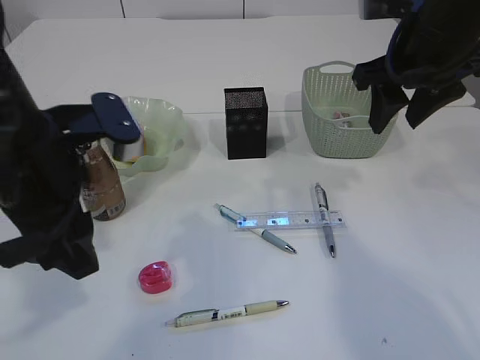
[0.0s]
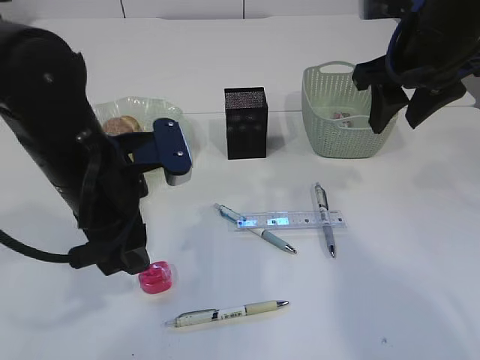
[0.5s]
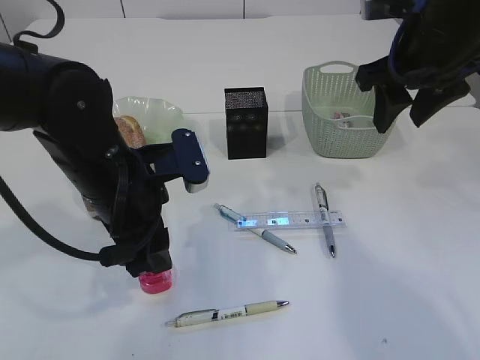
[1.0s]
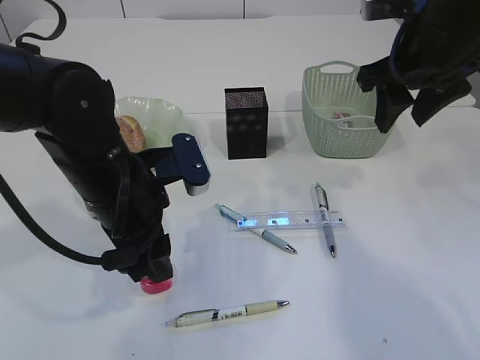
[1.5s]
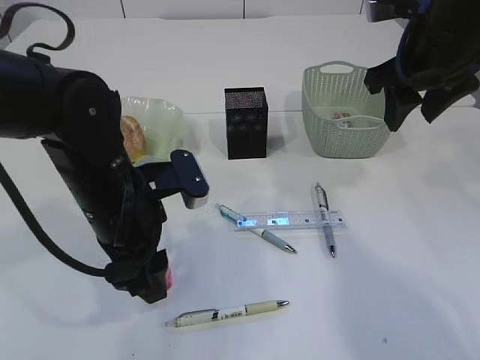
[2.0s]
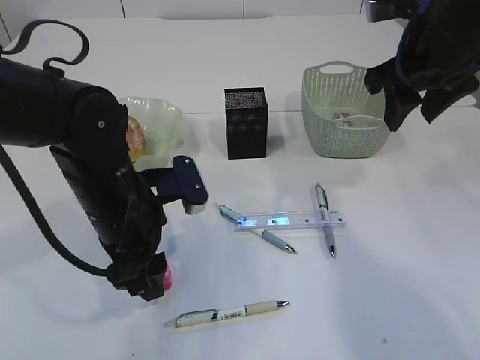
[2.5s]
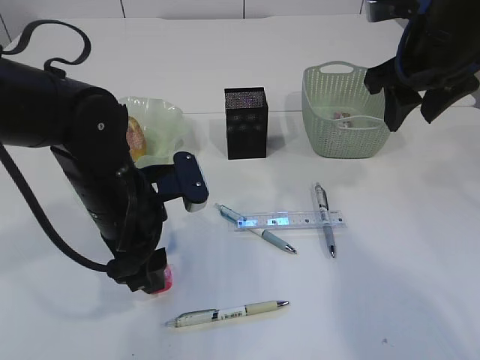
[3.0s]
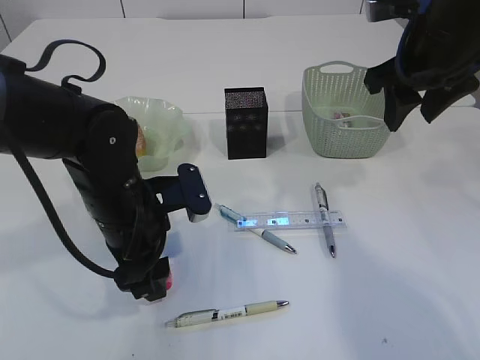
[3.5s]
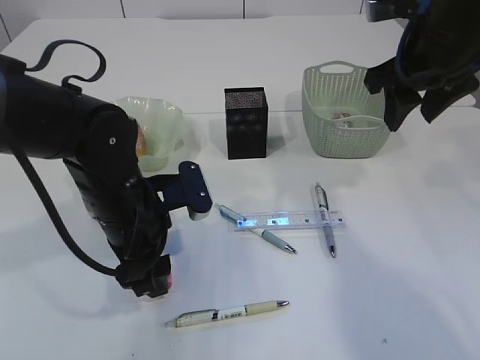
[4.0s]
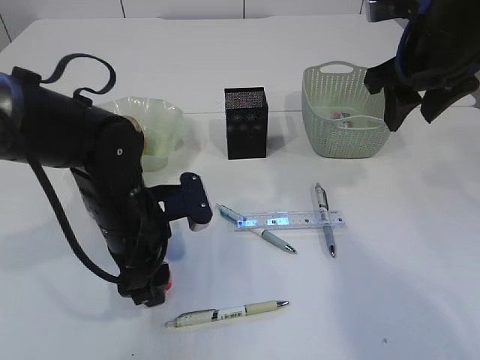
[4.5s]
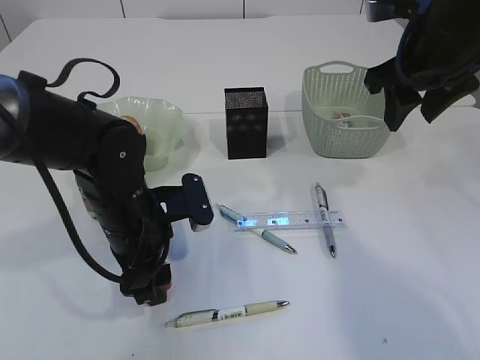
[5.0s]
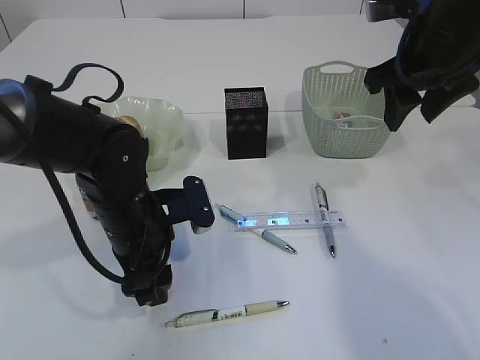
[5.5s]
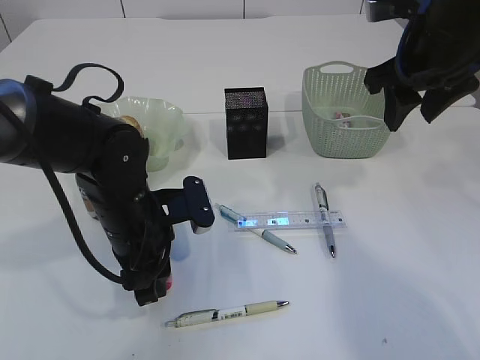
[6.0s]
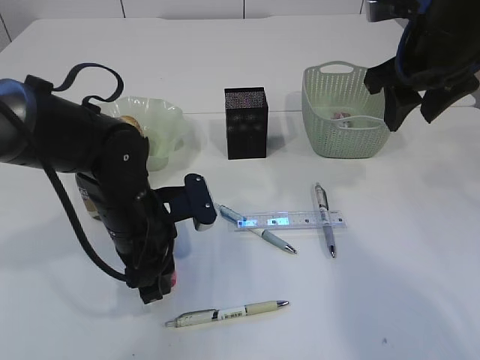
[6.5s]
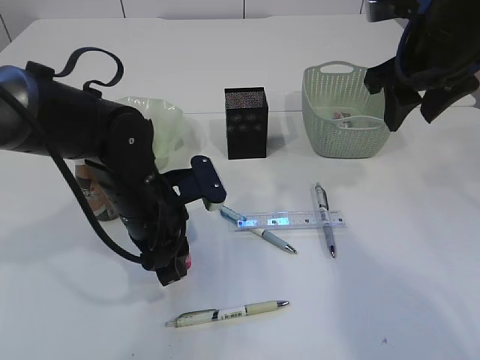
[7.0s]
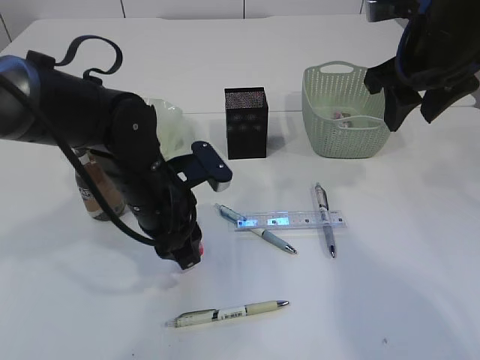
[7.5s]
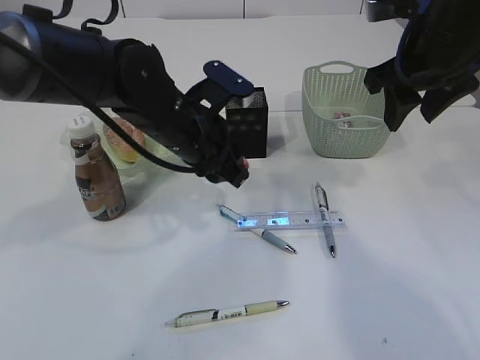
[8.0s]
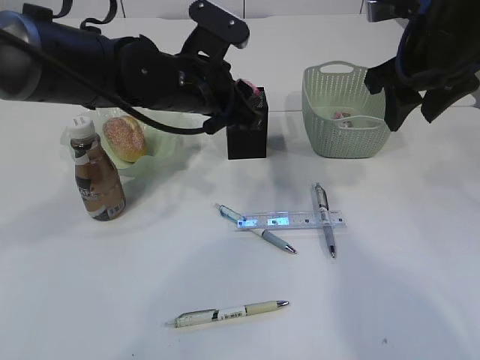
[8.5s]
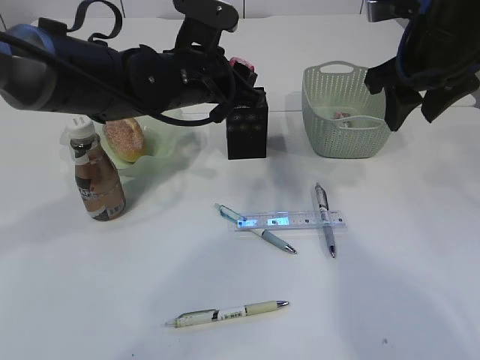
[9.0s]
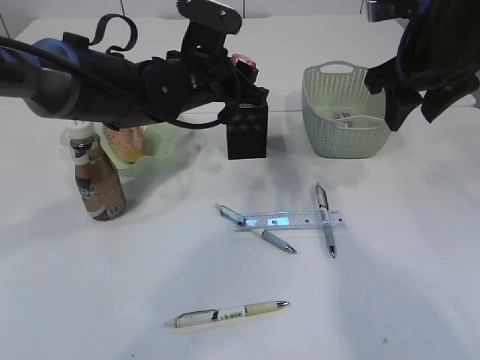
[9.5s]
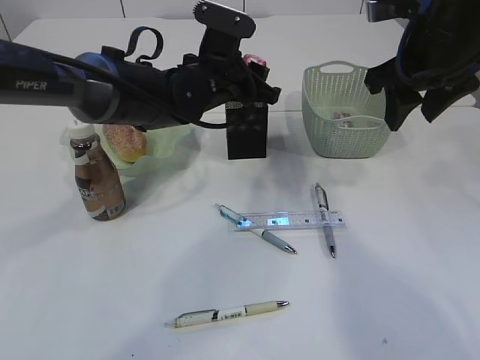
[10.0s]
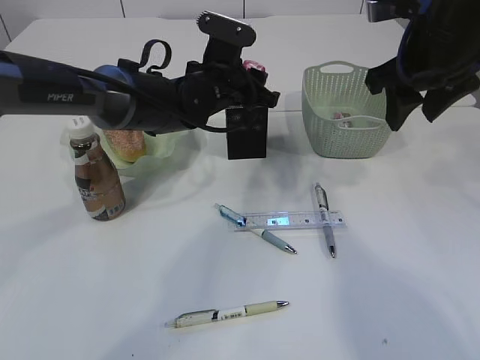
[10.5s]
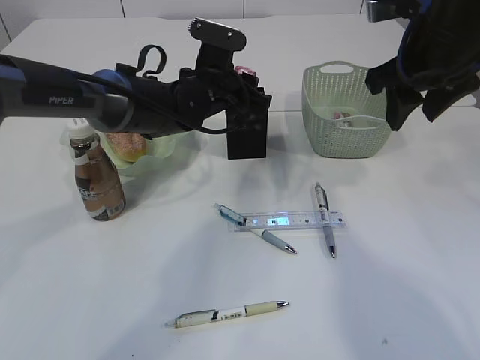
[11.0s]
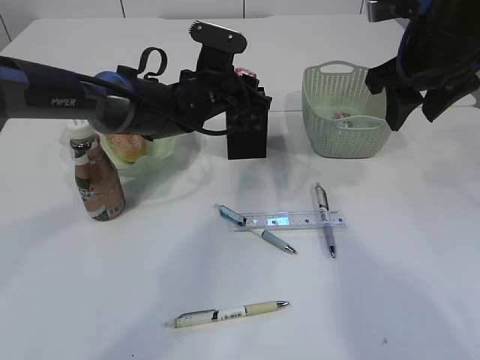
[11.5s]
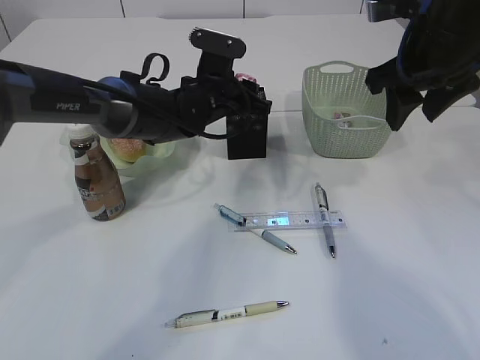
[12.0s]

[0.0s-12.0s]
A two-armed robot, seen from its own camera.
Step, 0.0s to 7.5s: Pick up the red pencil sharpener.
0.0s to 2.0s: The left gripper is displaced downward by roughly 10 cm.
2.0s to 4.0s: There are only small adjustments of the grippers.
4.0s to 6.0s: The left gripper closes up.
6.0s to 8.0s: The left gripper shifts roughly 10 cm upward, forward and to the right.
8.0s to 10.0s: The left gripper moves forward, some 10 cm.
10.0s to 12.0s: The left gripper ends up about 5 cm from where it was.

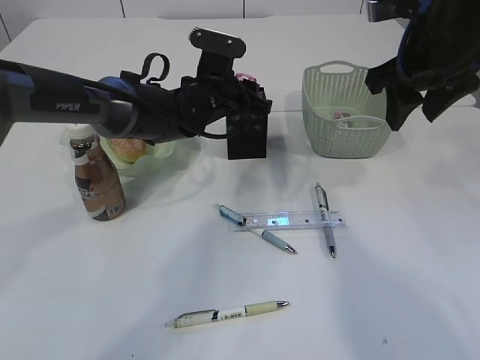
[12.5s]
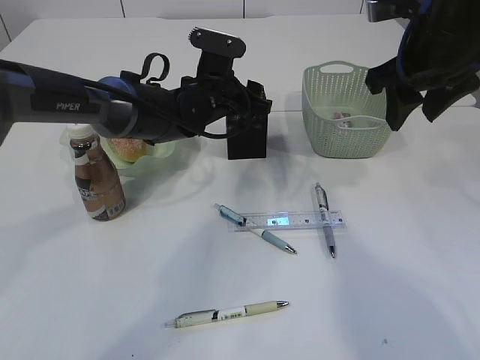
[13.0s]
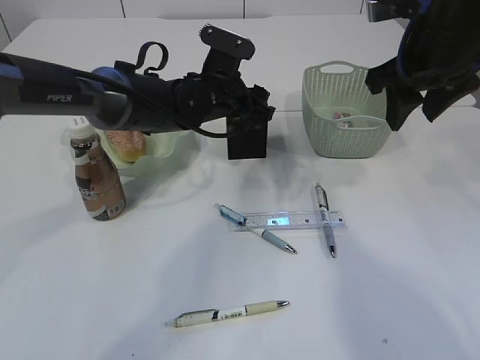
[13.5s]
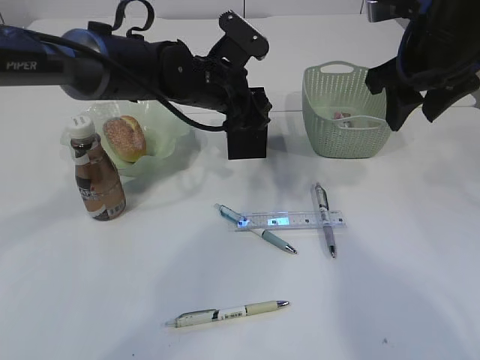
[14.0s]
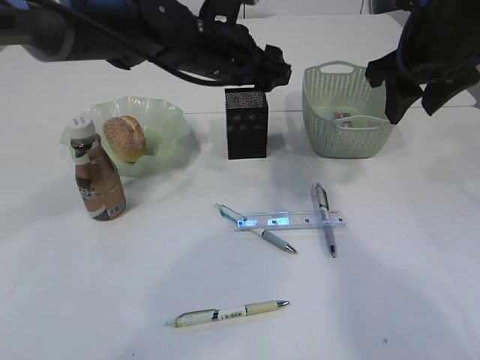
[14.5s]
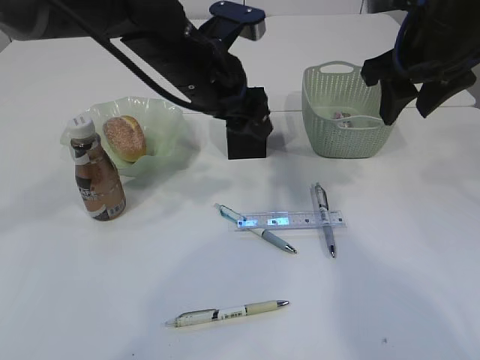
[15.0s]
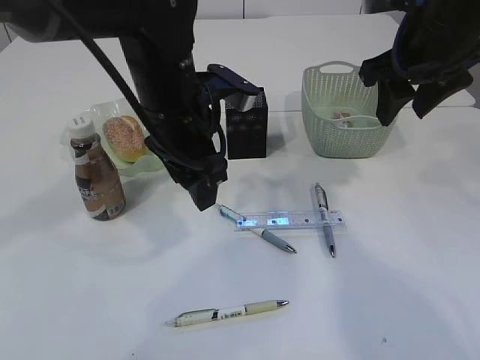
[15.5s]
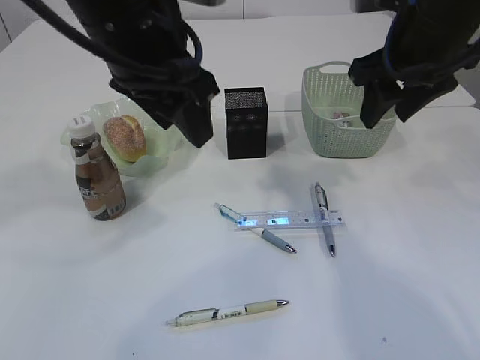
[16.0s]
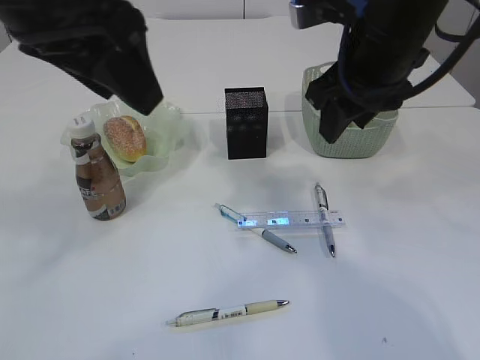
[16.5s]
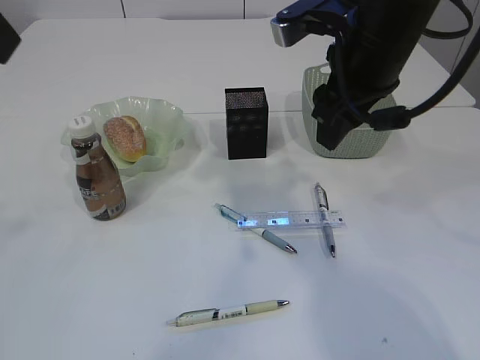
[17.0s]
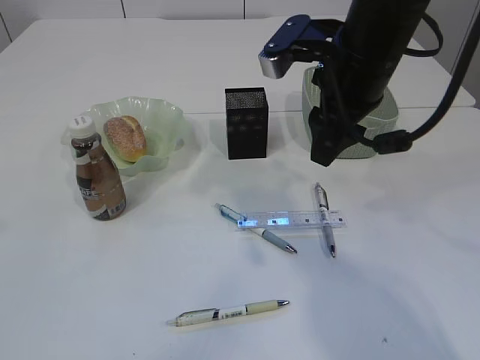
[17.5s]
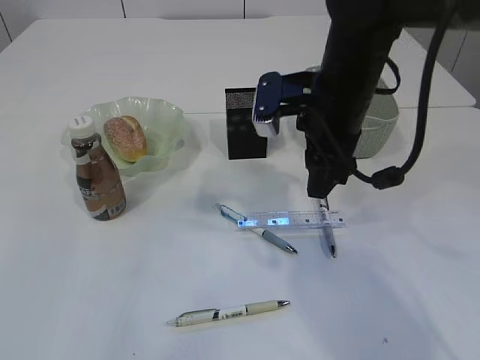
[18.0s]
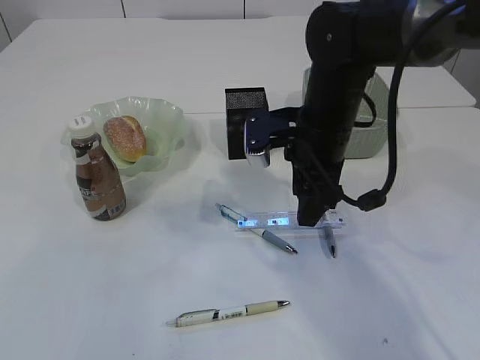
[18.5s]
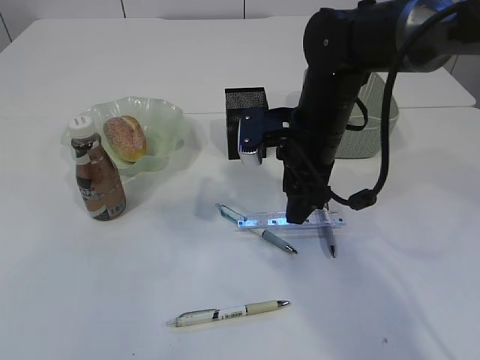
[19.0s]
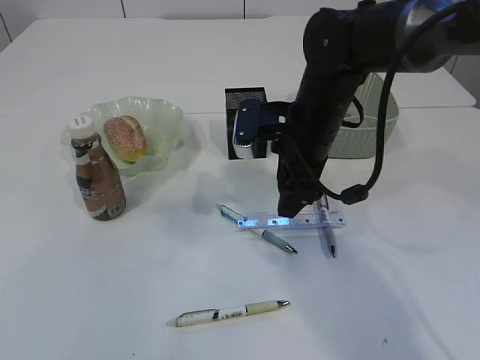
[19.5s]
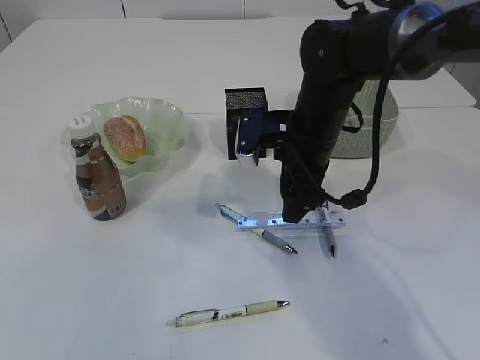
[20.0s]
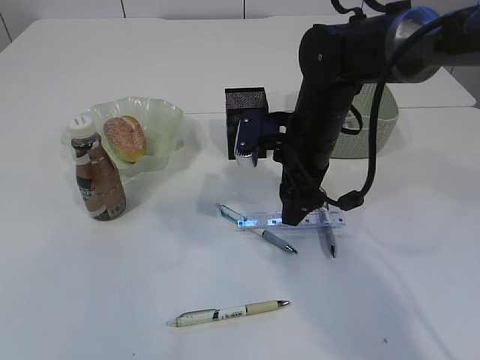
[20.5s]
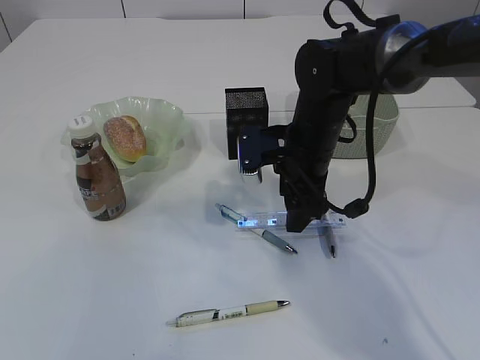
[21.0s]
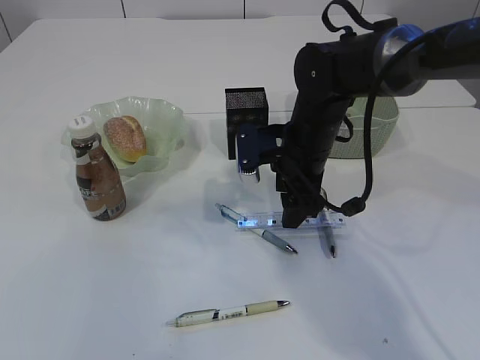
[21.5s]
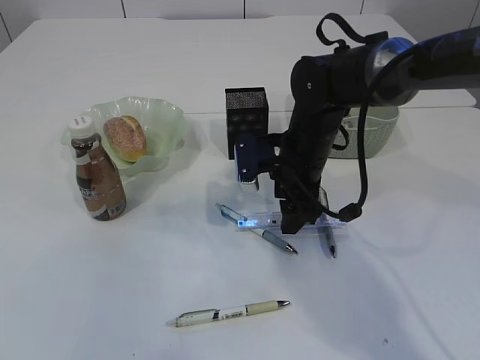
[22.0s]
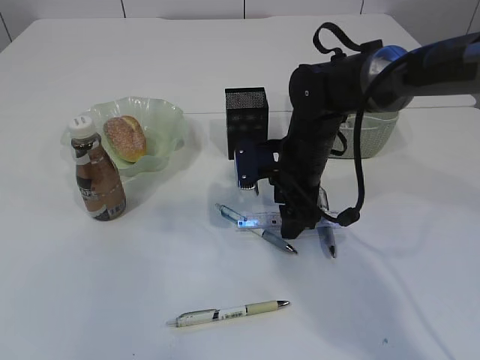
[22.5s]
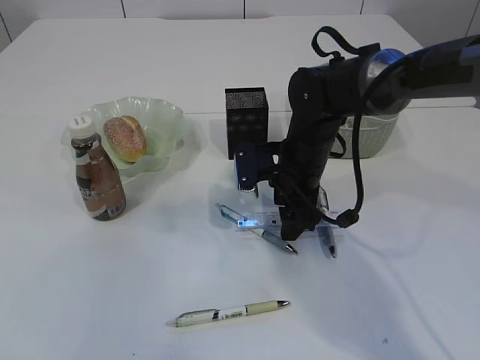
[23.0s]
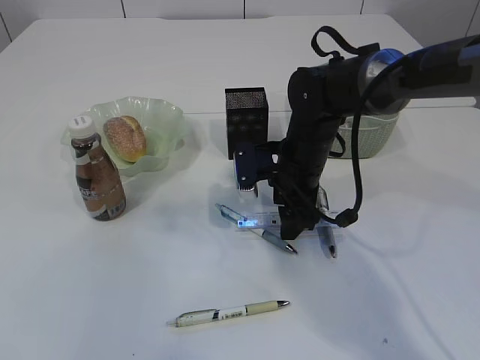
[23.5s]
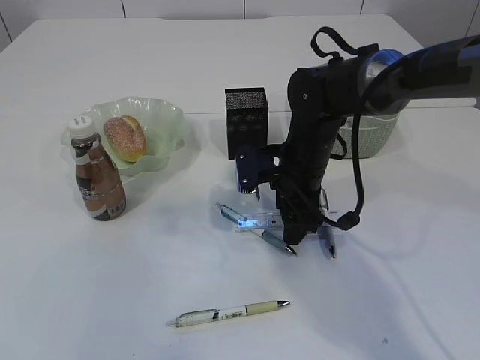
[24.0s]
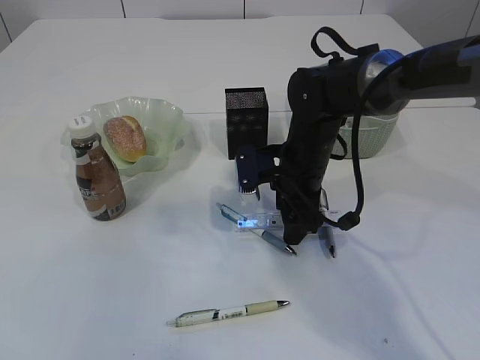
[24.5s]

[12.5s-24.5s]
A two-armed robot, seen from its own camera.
12.5s to 14.5s: The left gripper travels upward by roughly 10 cm, and opens up.
14.5s to 16.5s: The left gripper goes approximately 25 cm backward, upward and to the left, while the right gripper is displaced to the left by roughly 5 cm.
16.5s to 18.5s: The right gripper goes about 10 cm downward; the left gripper moves to the left and backward, some 15 cm.
18.5s to 20.5s: The grippers make only small movements.
20.5s to 22.5s: There are only small adjustments of the grippers.
22.5s to 24.5s: The two grippers keep their place.

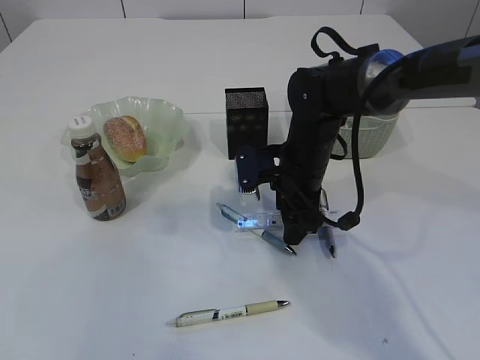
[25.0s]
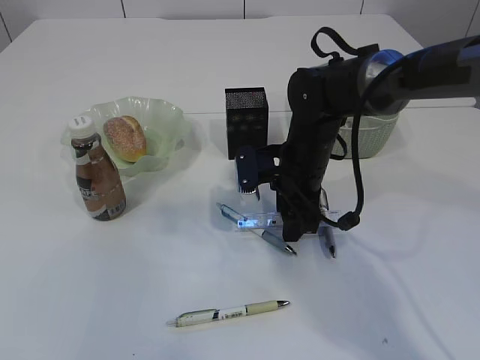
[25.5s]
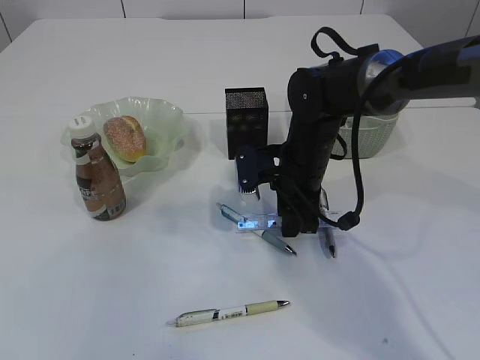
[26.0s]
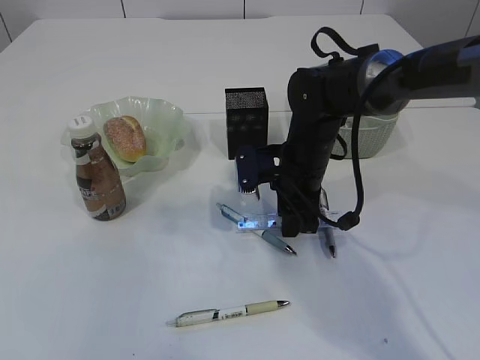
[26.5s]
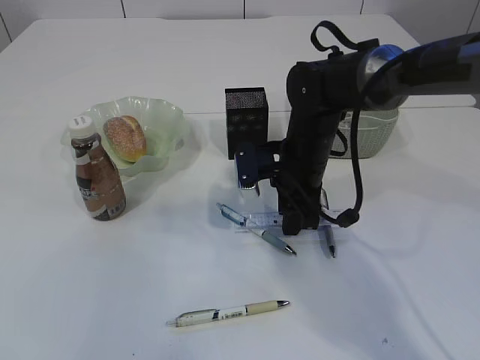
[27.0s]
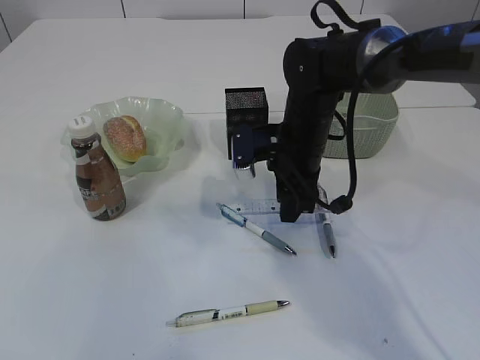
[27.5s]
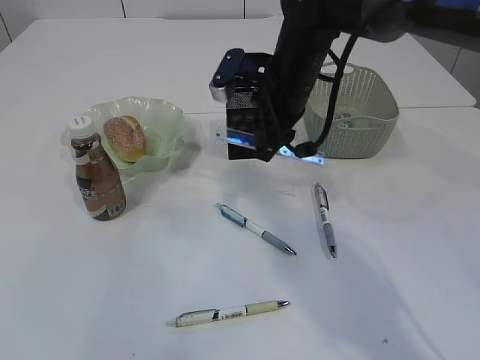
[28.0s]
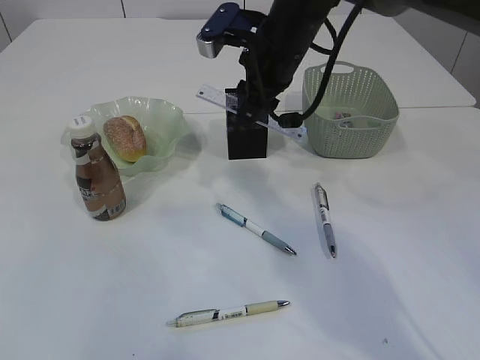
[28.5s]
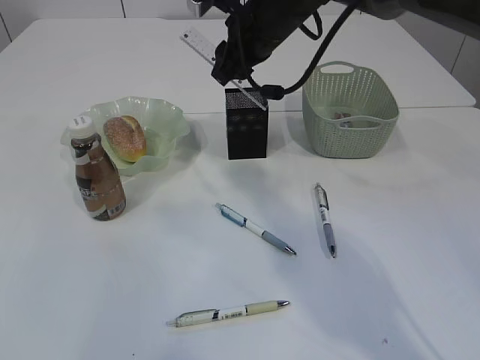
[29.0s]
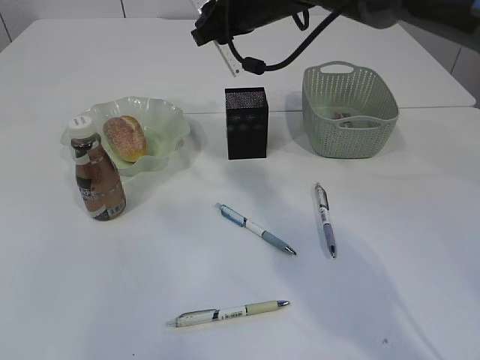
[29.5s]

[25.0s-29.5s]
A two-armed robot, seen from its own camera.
Step, 25.0s to 27.5s: pick up the ruler.
25.0s to 27.0s: The right gripper closes up.
27.0s to 29.5s: The right gripper heads upward and forward, covering some 20 cm.
